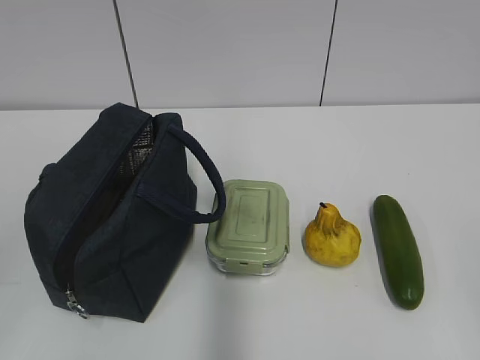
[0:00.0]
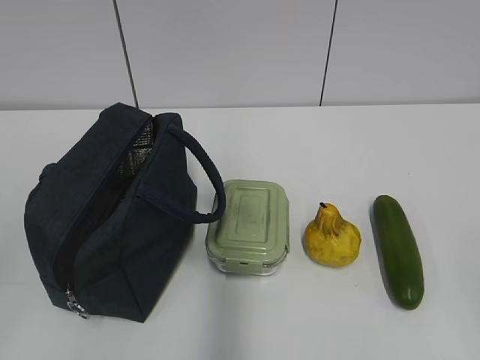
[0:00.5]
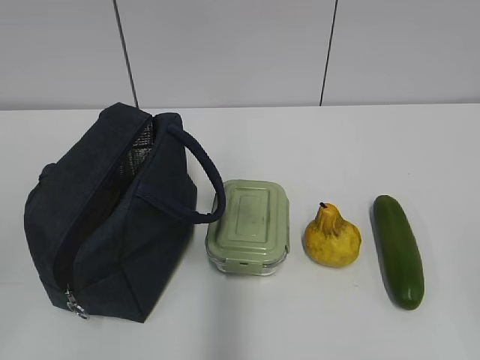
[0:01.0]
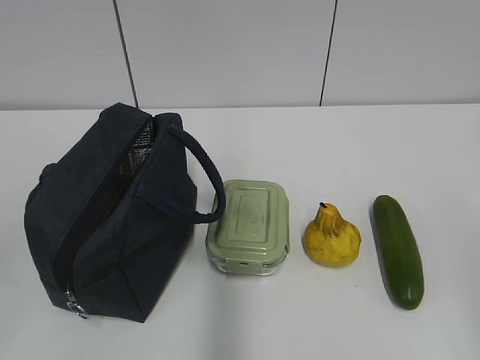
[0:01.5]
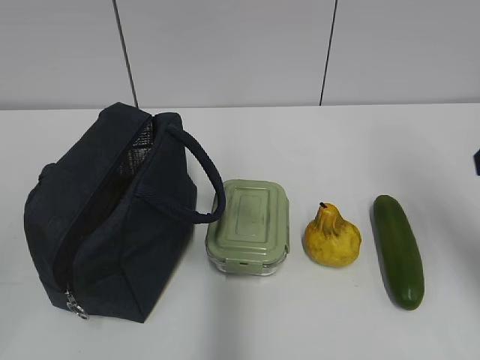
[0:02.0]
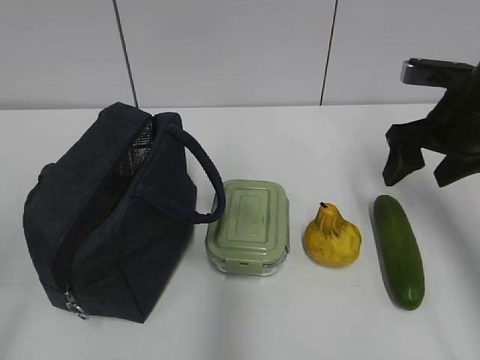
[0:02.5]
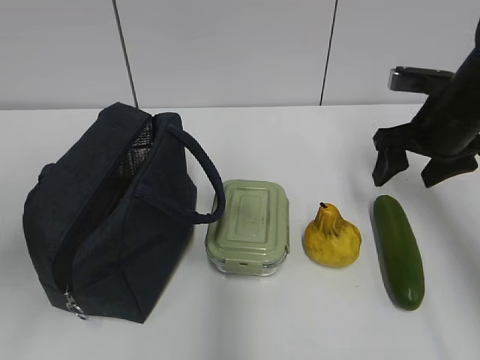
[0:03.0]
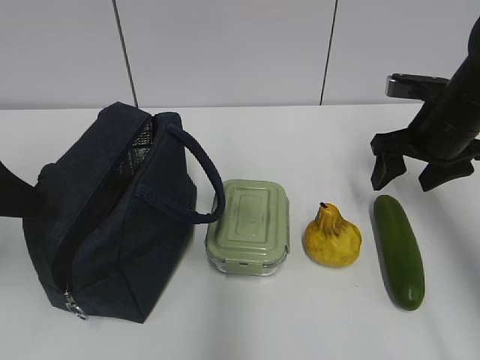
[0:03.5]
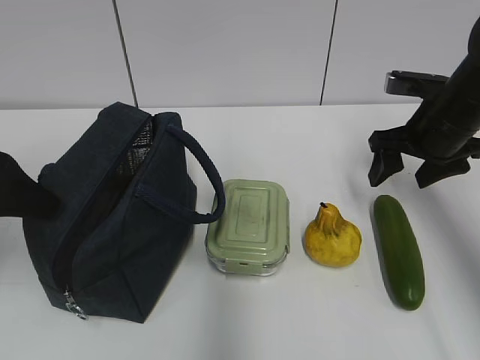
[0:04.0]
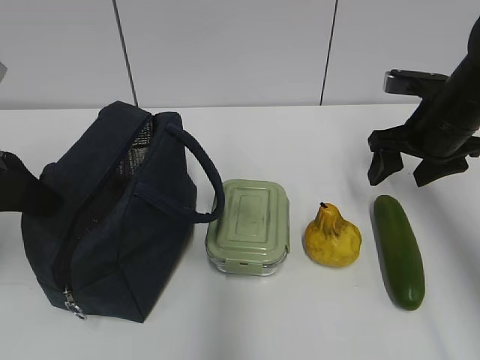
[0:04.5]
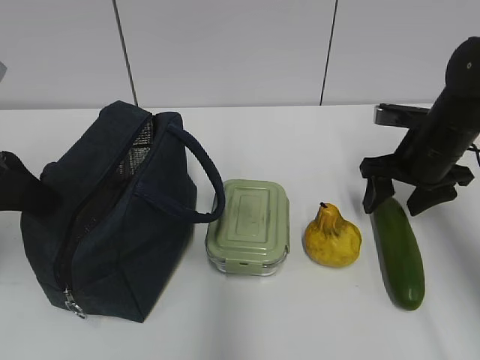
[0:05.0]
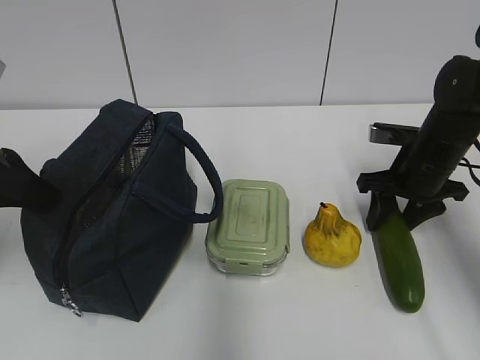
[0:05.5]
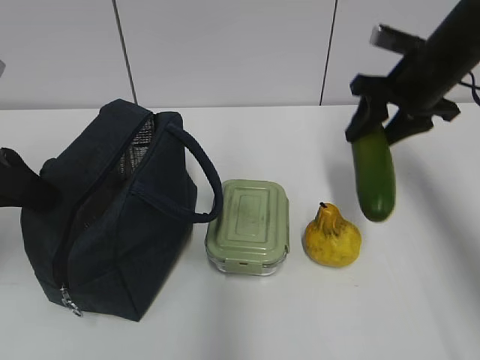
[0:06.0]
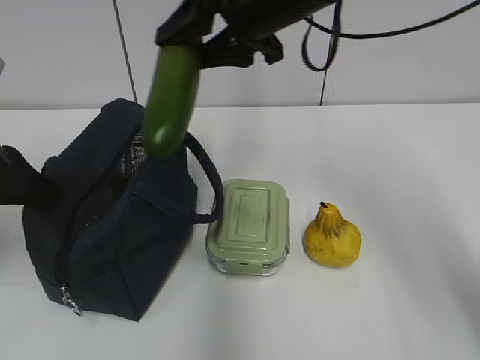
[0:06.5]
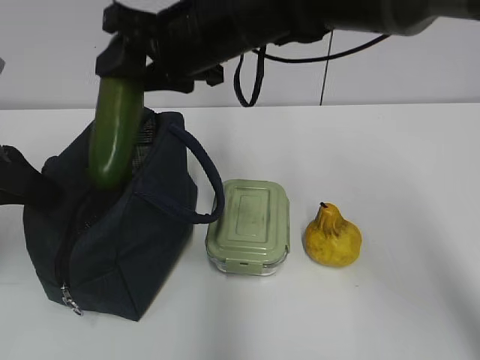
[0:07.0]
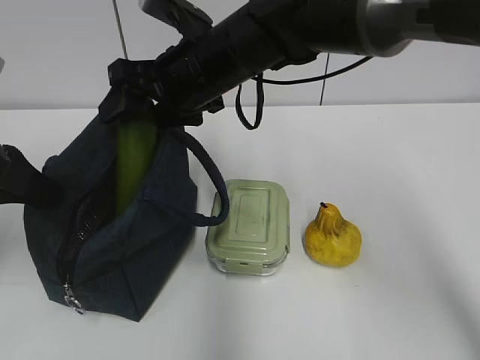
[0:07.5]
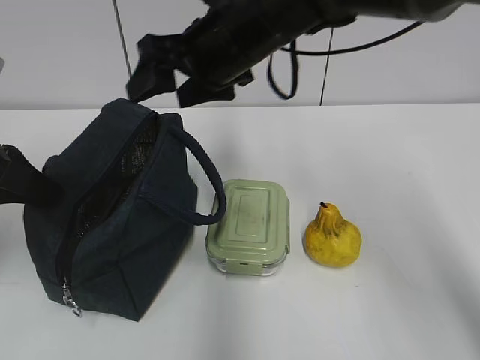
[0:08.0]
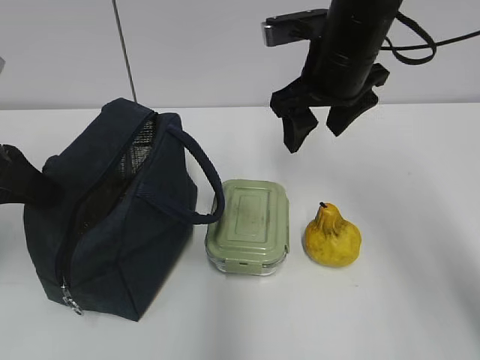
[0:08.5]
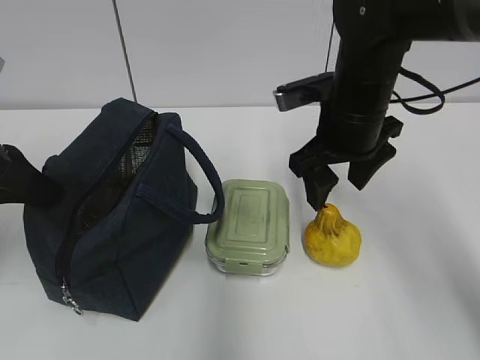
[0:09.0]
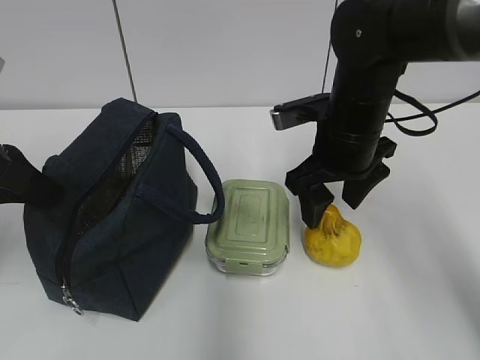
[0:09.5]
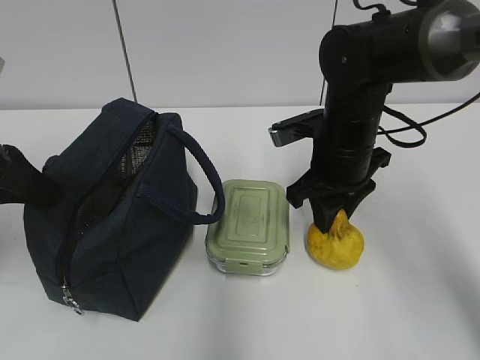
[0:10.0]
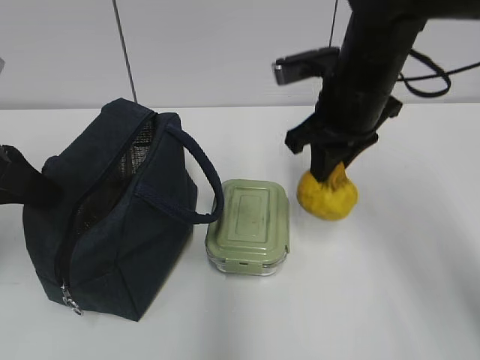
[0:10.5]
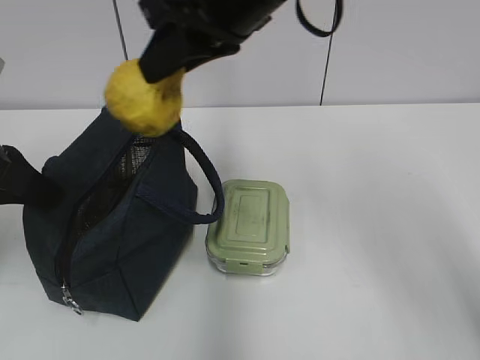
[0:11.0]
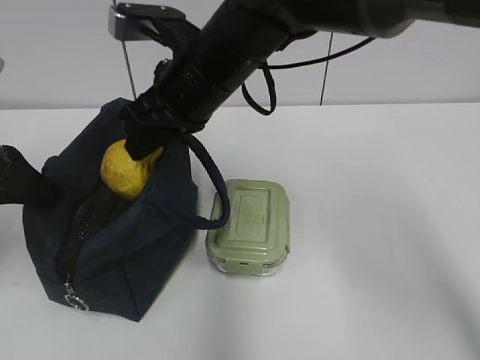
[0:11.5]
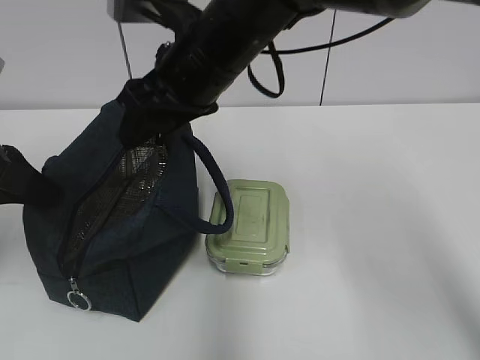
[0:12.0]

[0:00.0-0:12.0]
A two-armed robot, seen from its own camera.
Step, 0:00.0 to 0:05.0: Grab the cucumber with your right hand.
Step, 0:08.0 to 0:10.0: Grab the pear with your right hand.
Step, 0:10.5 to 0:11.5: Place it into the bag with your right hand.
0:02.0 to 0:04.0: The right gripper moves forward and downward, some 20 cm, and opens. Meanwhile the left gripper travels forward by approximately 25 cm, and opens its fingers.
0:04.0 to 0:06.0: The right gripper shifts some 5 cm upward, and closes up; the left gripper closes its fingers.
0:06.0 to 0:08.0: The right gripper shifts approximately 20 cm to the left.
0:08.0 to 0:10.0: The right gripper goes about 15 cm downward and to the right, and closes its fingers.
0:10.0 to 0:12.0: The right gripper moves to the left and upward, roughly 15 cm.

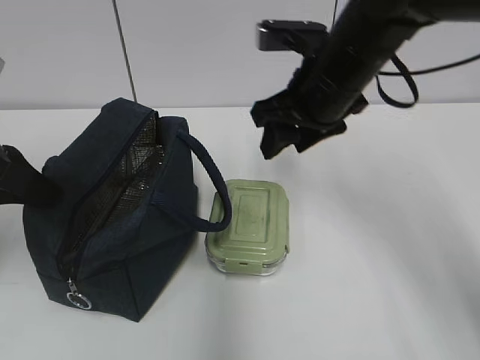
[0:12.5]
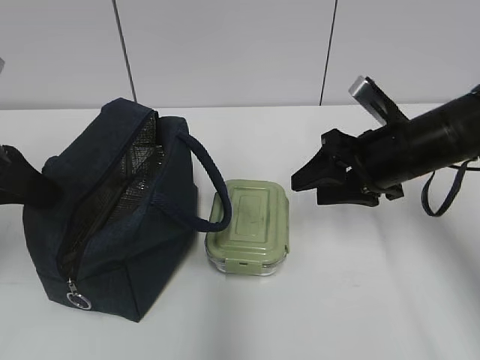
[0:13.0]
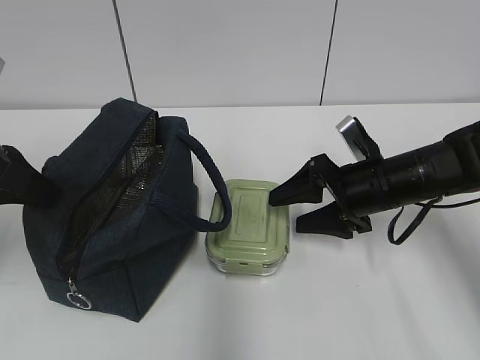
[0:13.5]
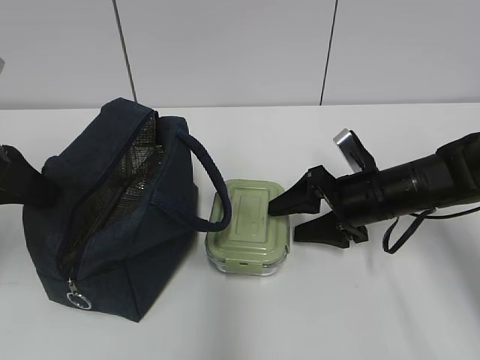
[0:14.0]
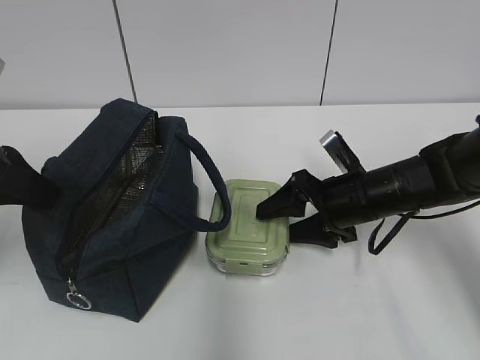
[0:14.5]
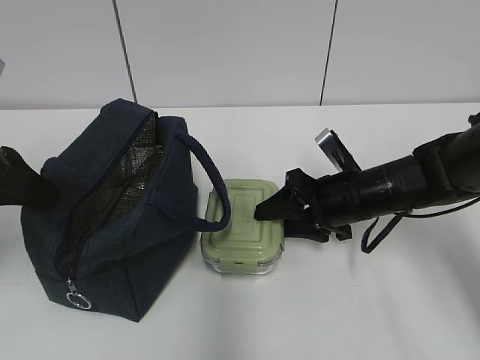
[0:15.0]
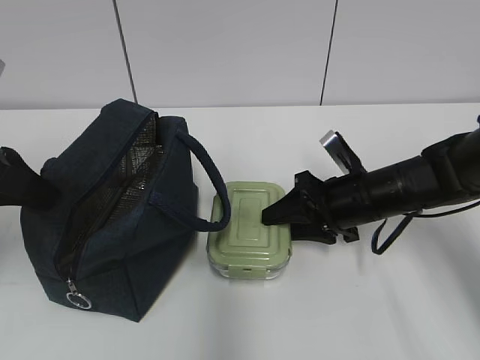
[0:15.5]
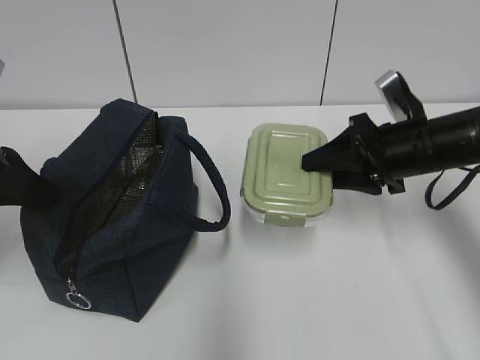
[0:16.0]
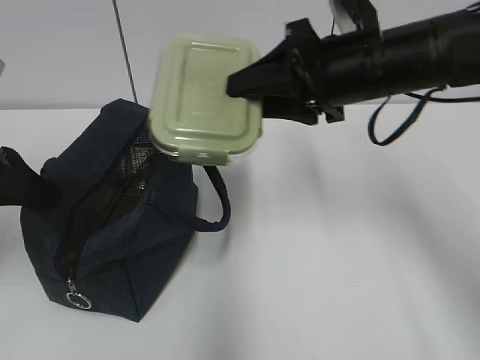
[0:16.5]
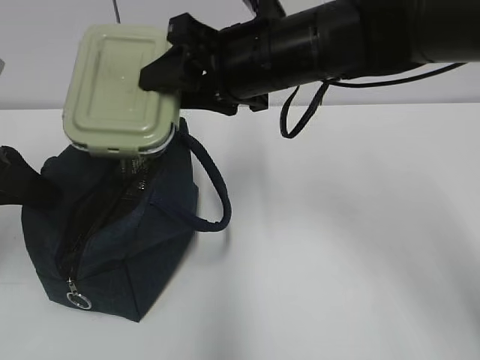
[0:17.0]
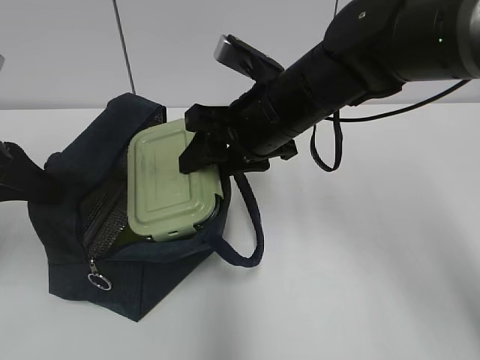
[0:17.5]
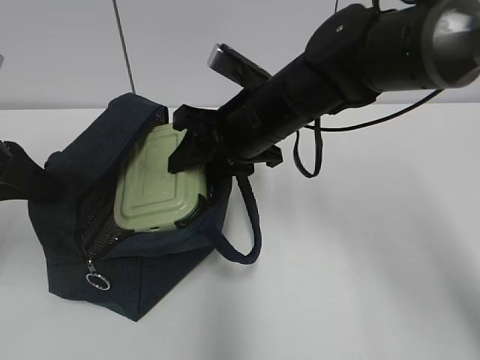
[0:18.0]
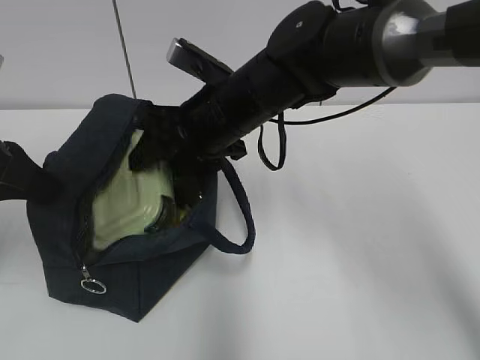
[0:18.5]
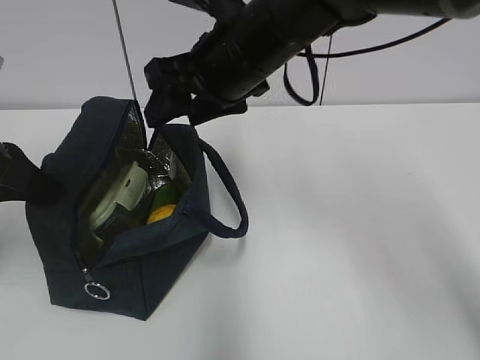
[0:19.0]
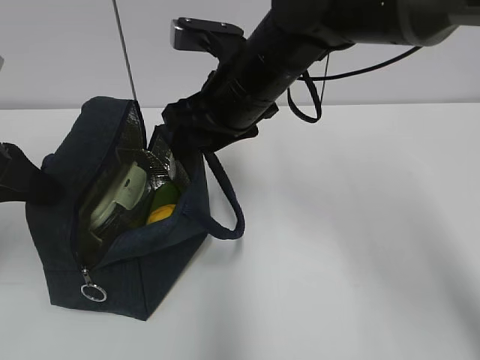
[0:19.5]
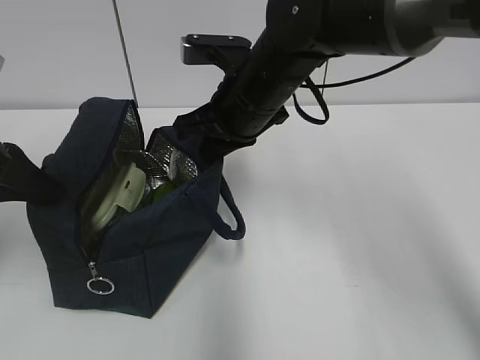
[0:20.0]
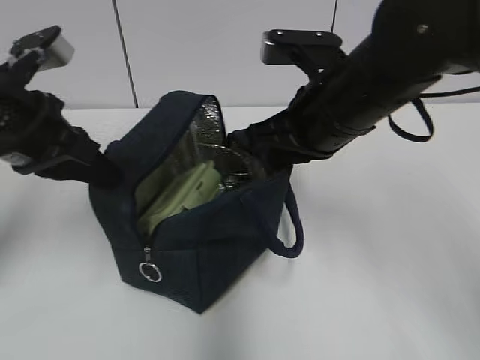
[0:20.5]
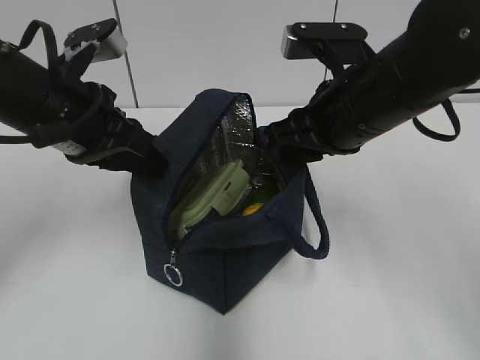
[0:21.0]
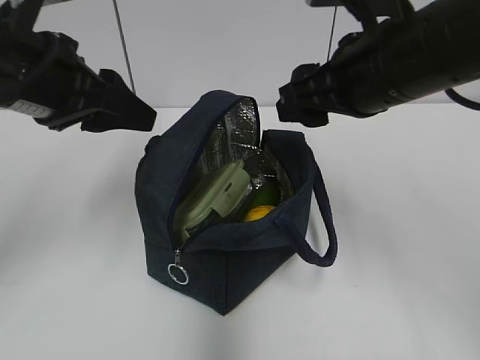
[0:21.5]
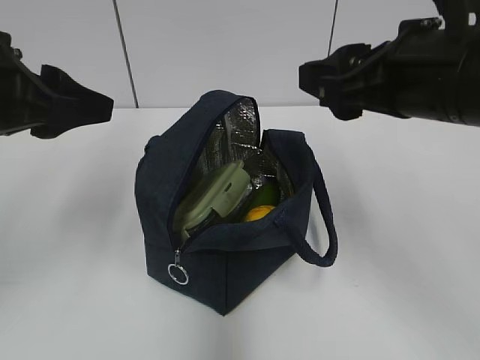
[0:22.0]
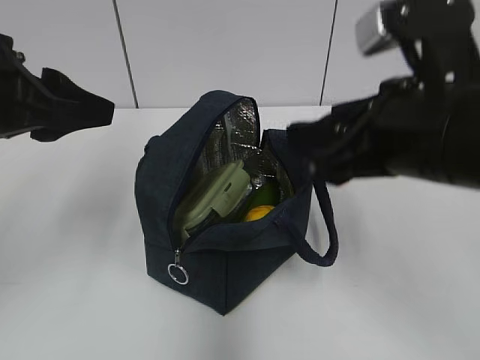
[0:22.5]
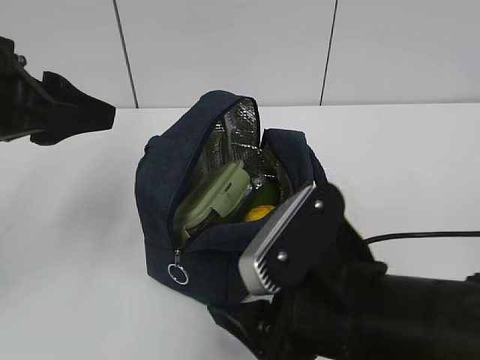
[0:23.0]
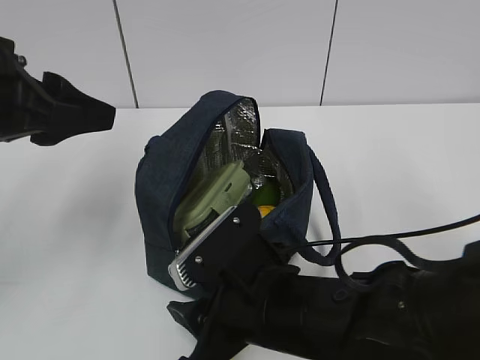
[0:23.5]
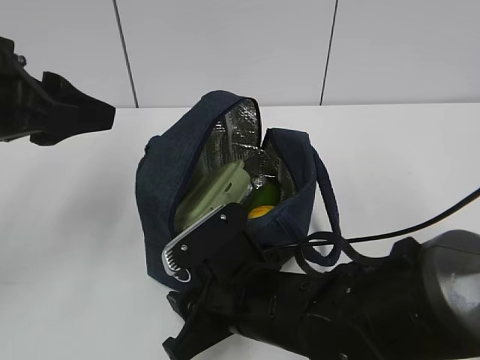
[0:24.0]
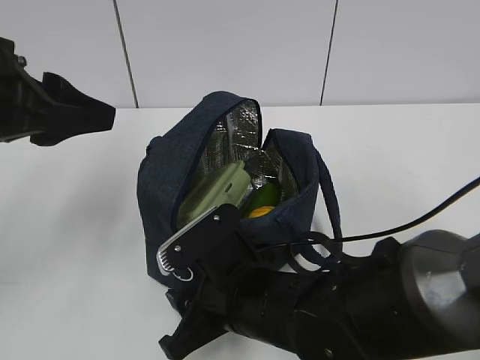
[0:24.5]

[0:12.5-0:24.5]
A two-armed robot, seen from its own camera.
Step, 0:12.5 to 0:15.0: Grab the lunch box with your right hand.
Step, 0:19.0 to 0:19.5: Grab the lunch bag with your right hand.
Step, 0:20.0 to 0:21.0: Move the lunch bag to the right.
0:12.5 to 0:14.5: The right gripper heads downward, covering some 15 cm.
0:14.5 to 0:16.5: The right gripper moves upward, some 20 cm, and closes.
0:16.5 to 0:18.5: The right gripper heads to the left and downward, covering roughly 15 cm.
0:18.5 to 0:20.5: The right gripper moves to the right, roughly 10 cm, and closes up. Meanwhile the left gripper shifts by some 5 cm.
0:20.5 to 0:22.5: The left gripper moves upward, approximately 5 cm, and opens its fingers. The right gripper is displaced backward by about 10 cm, and opens.
0:22.5 to 0:24.5: The right gripper goes roughly 20 cm downward and to the left.

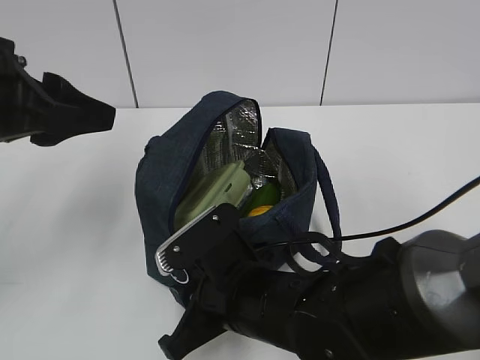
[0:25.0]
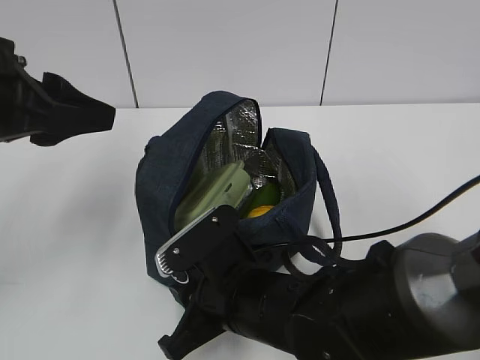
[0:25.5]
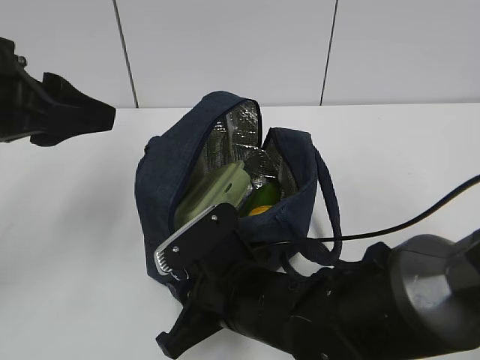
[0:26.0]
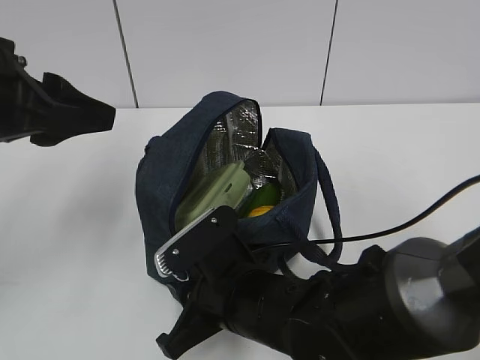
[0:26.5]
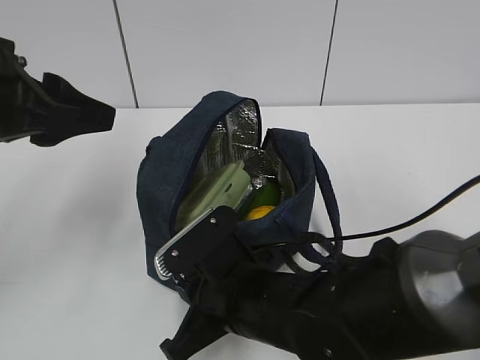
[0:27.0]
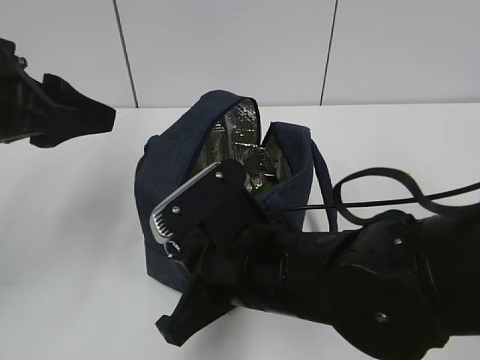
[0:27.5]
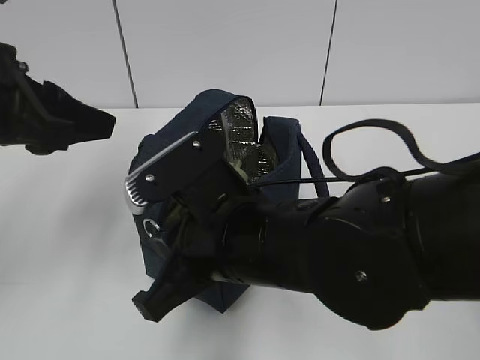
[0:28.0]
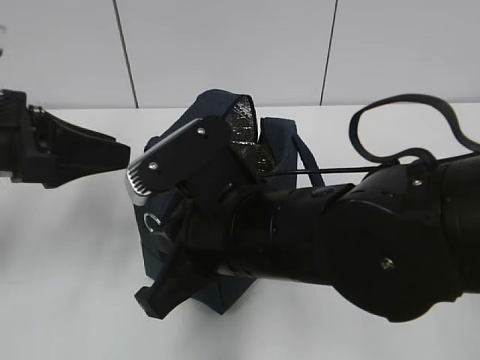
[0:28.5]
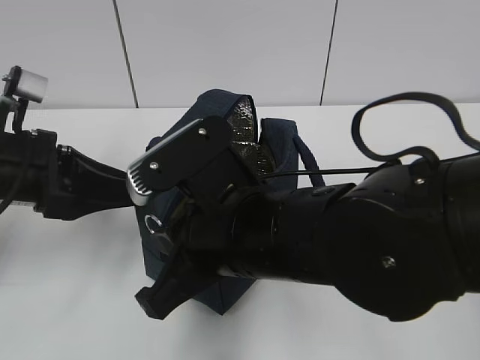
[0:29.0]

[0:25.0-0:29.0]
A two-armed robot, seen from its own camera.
0:25.0 to 0:27.0: Both grippers stay put.
0:27.0 to 0:29.0: The left gripper is displaced downward by approximately 10 cm, while the right gripper heads upward, covering about 10 cm.
